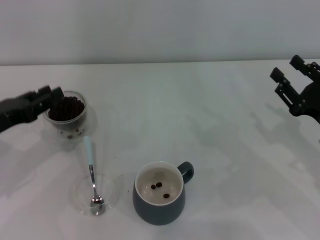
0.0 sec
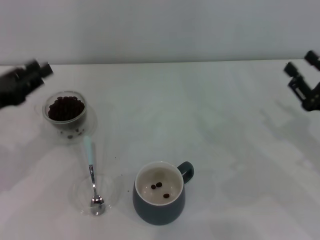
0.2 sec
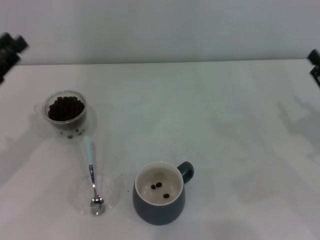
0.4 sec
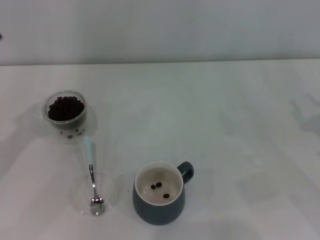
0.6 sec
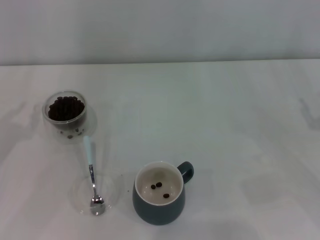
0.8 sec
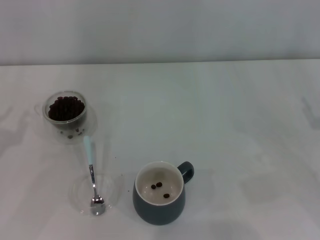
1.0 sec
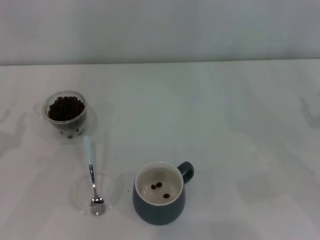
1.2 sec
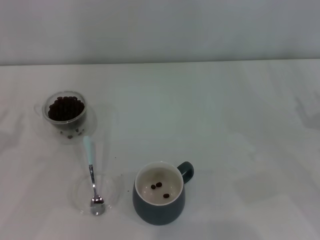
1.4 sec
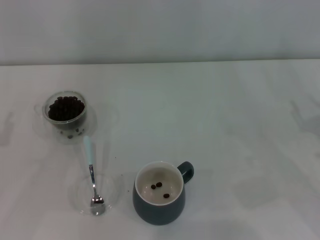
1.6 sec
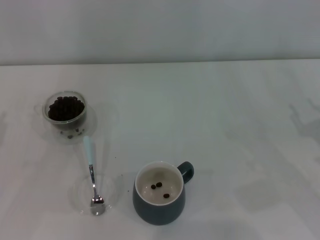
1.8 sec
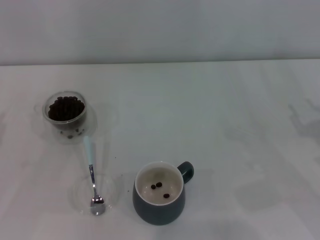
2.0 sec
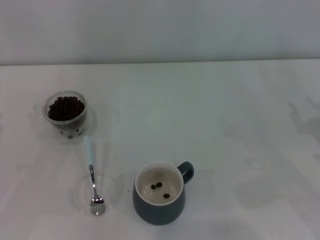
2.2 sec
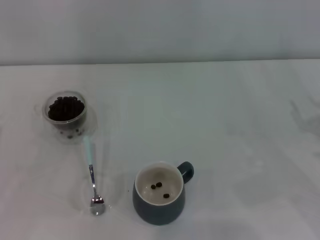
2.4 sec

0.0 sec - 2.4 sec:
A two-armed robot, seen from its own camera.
Task of the whole recording: Use a blue spoon to take out the coffee beans from the glass and pour them into the gray cup.
0.0 sec - 1.2 sec: The right gripper shifts some 5 cm to the right; the left gripper moves to the left, approximately 5 cm.

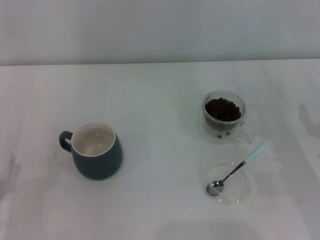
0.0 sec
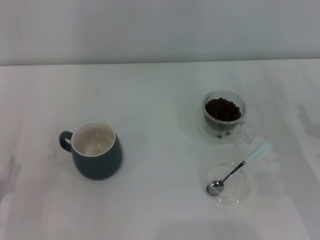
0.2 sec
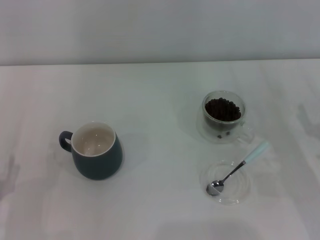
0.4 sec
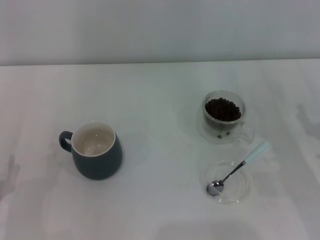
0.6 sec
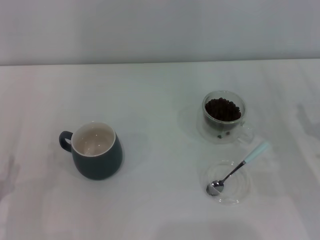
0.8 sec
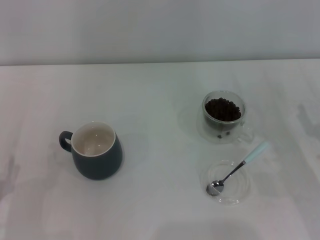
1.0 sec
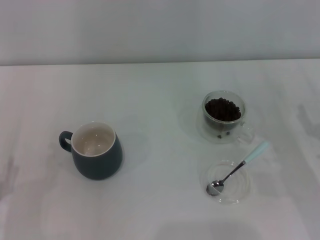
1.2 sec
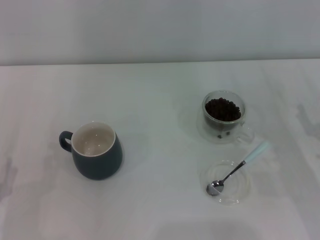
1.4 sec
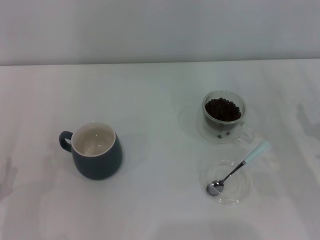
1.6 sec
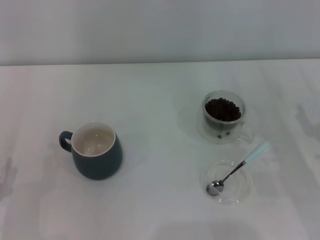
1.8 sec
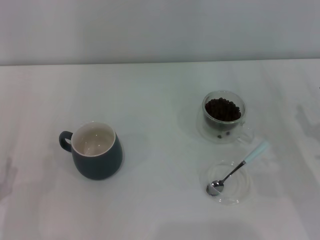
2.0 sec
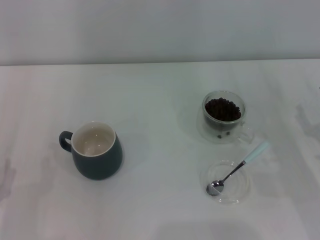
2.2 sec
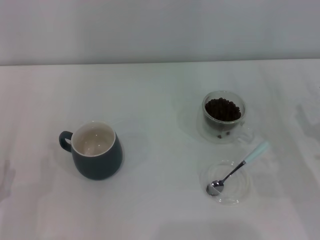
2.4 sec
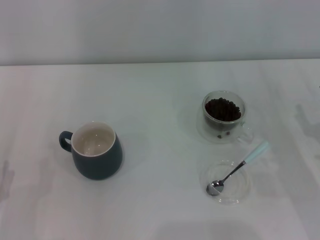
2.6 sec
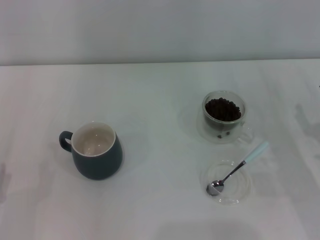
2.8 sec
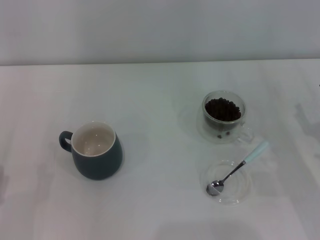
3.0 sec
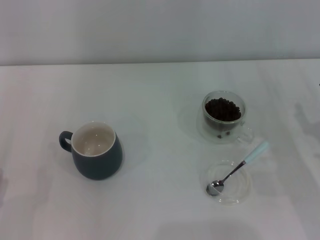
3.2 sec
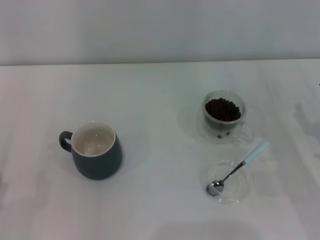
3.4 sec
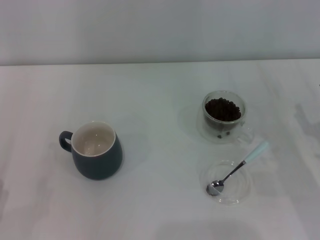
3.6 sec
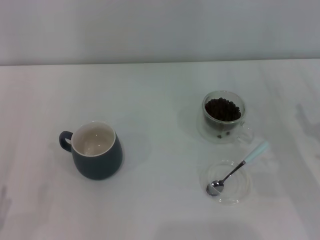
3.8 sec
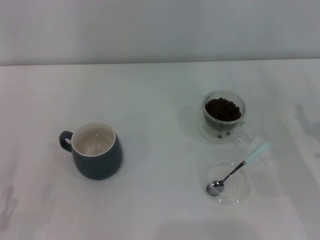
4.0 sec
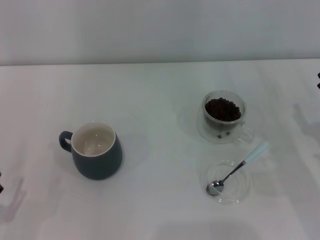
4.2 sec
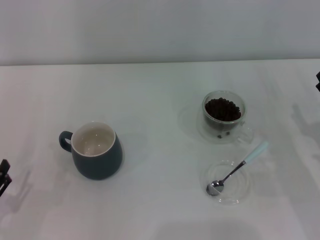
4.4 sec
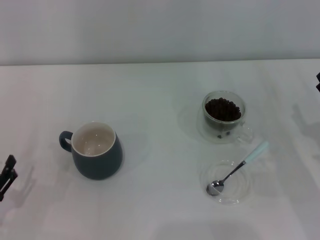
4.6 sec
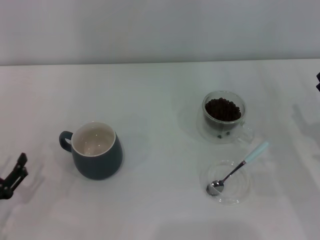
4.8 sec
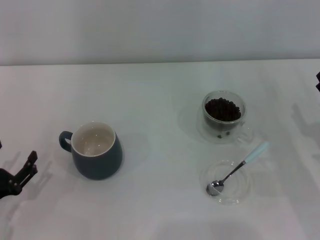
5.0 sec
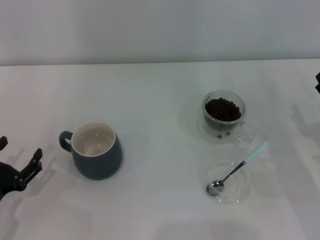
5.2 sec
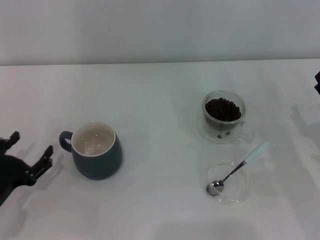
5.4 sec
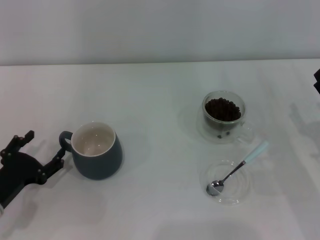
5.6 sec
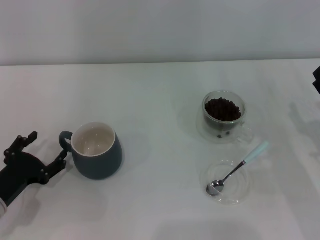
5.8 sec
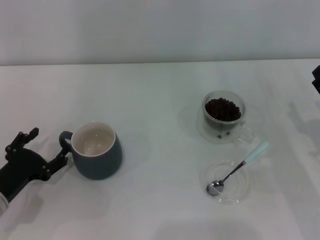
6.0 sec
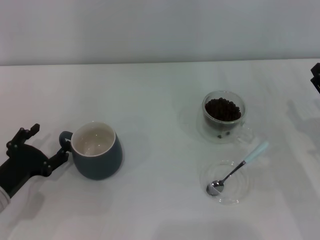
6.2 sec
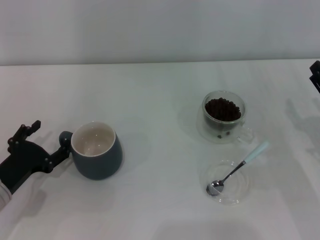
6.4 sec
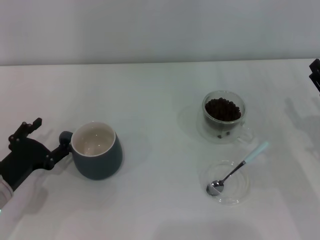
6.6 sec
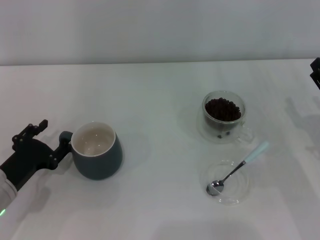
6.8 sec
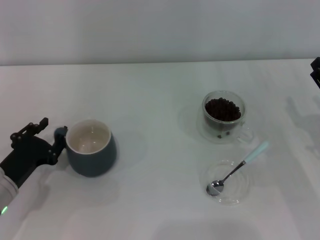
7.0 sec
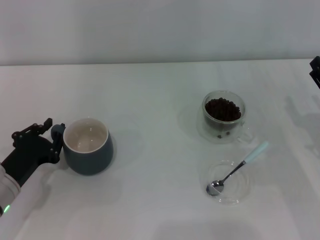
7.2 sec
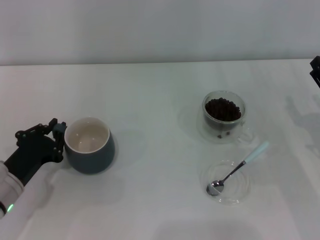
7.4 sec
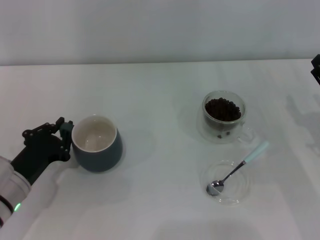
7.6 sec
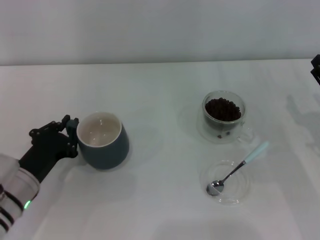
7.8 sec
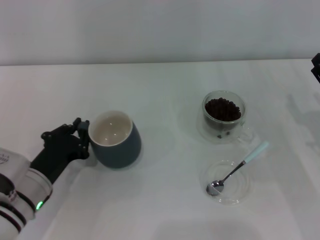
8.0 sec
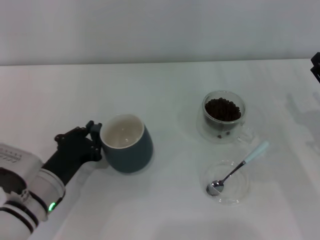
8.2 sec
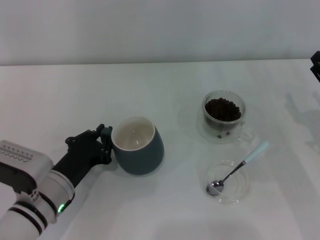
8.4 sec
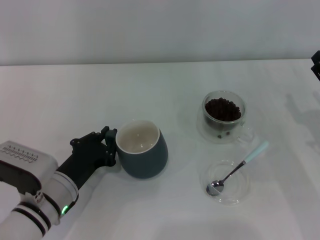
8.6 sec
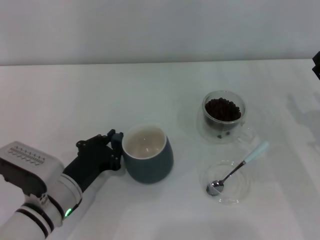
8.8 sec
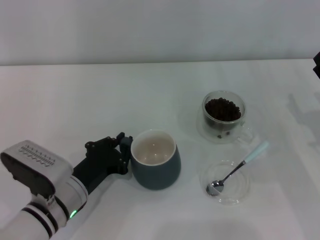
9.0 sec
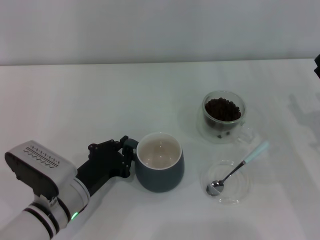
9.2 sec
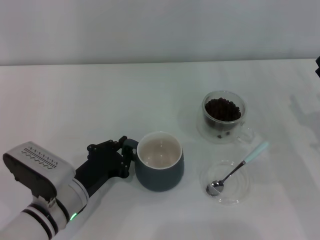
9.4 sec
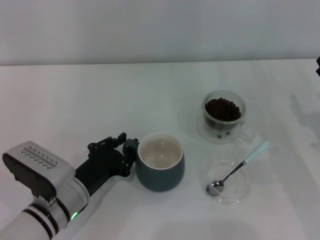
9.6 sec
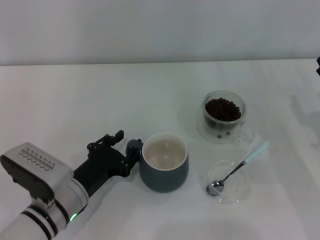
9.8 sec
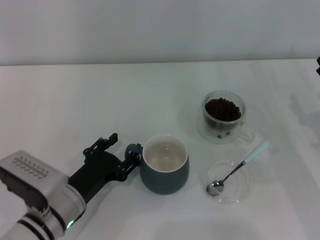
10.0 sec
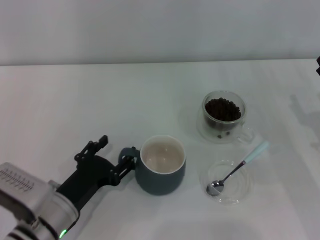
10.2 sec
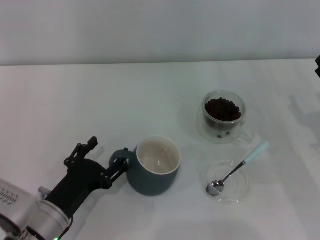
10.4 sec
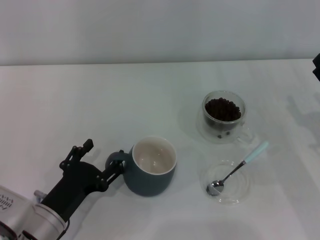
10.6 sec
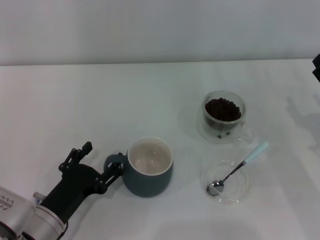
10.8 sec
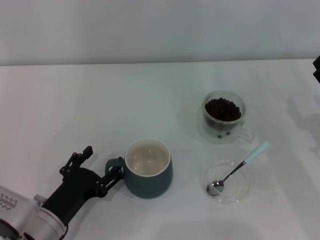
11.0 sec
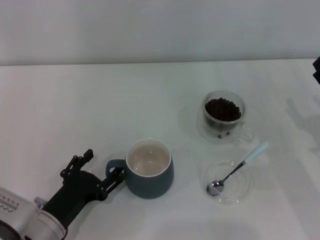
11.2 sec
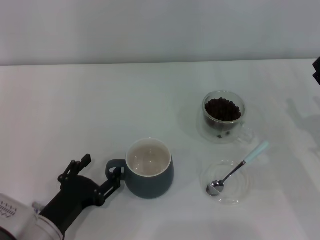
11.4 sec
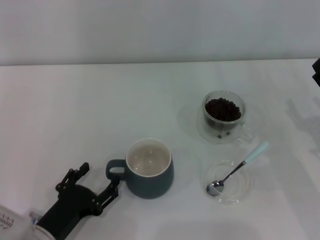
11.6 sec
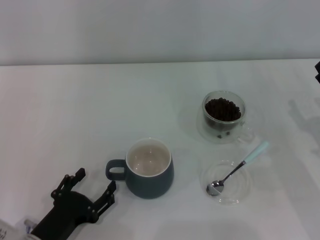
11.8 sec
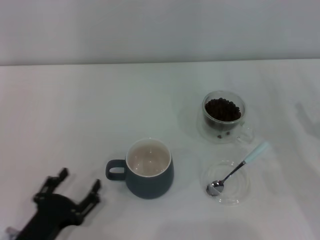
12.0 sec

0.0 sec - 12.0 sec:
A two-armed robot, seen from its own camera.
Task of the whole recording: Use a blue spoon to take out the coffee beans from the glass and pour them into the gray cup.
Step, 0.0 sec - 12.0 sec: Move the cup to the center of view with the left gripper.
0.0 sec - 1.6 sec: Neither gripper changes place.
4.4 sec - 6.0 sec: The left gripper moves forward, approximately 10 cm.
6.0 sec - 7.6 sec: The left gripper closes.
7.6 sec - 9.0 sec: The left gripper moves to the right, some 10 cm.
9.0 sec - 10.4 sec: The left gripper opens up.
10.4 sec - 12.0 sec: The left gripper is displaced backward by approximately 5 cm.

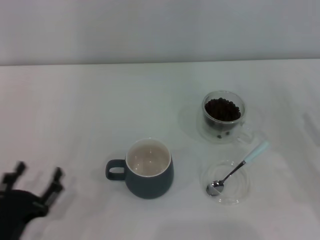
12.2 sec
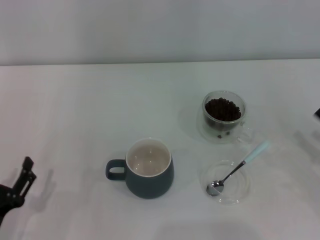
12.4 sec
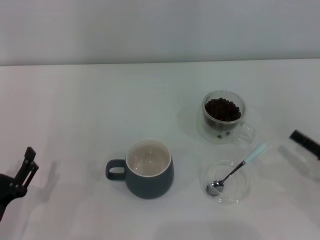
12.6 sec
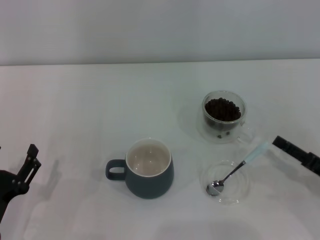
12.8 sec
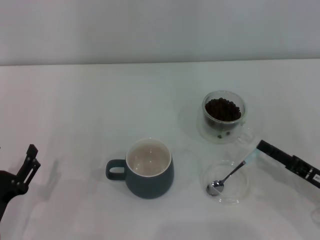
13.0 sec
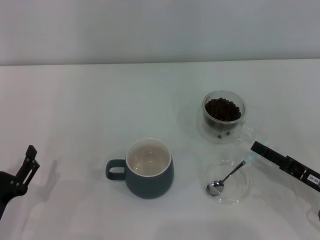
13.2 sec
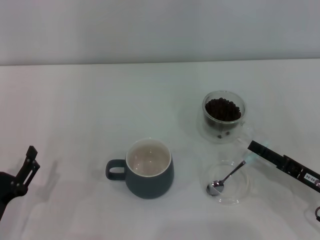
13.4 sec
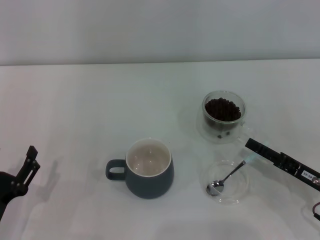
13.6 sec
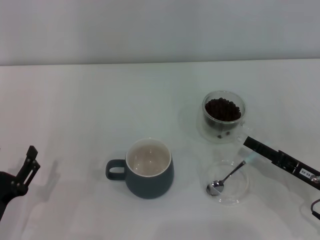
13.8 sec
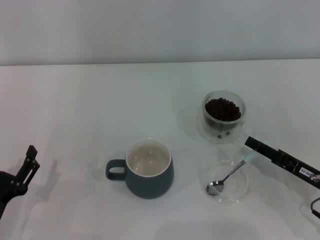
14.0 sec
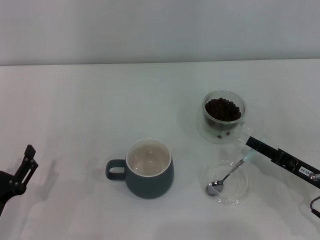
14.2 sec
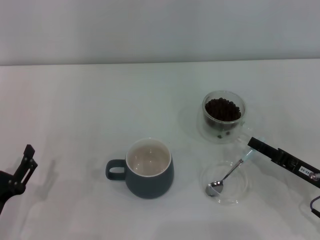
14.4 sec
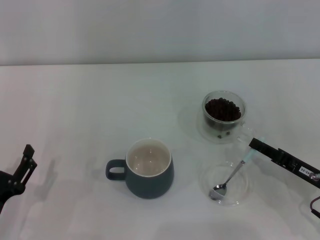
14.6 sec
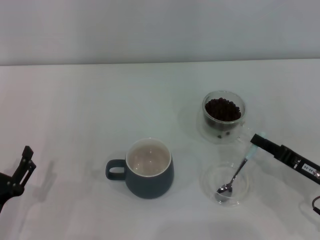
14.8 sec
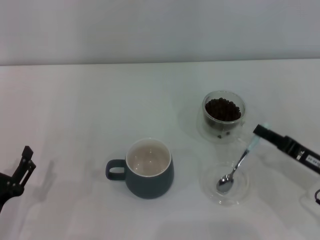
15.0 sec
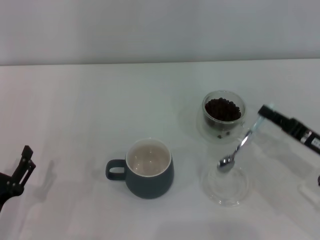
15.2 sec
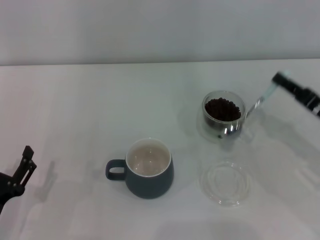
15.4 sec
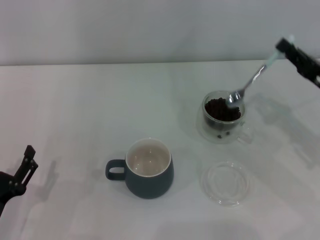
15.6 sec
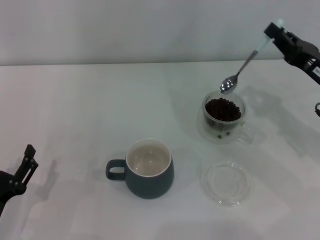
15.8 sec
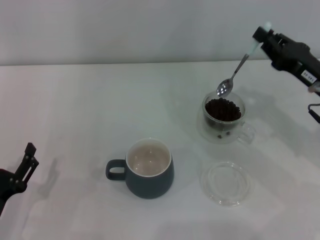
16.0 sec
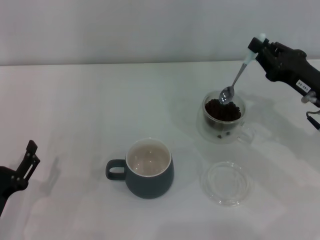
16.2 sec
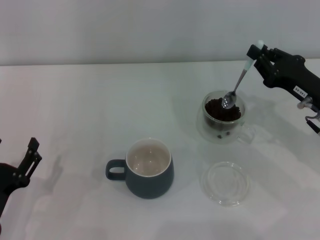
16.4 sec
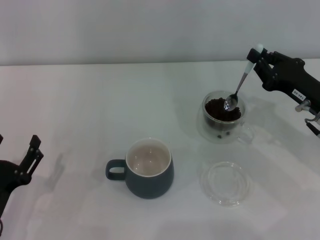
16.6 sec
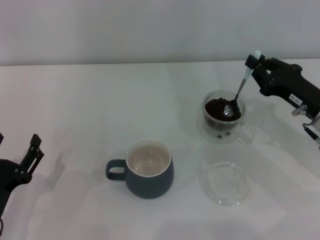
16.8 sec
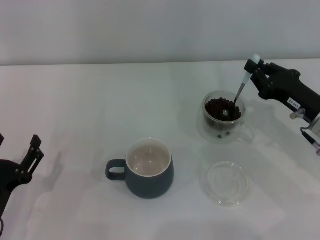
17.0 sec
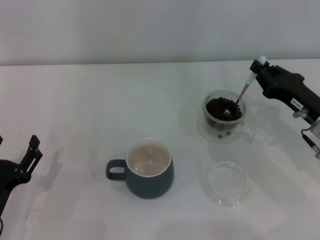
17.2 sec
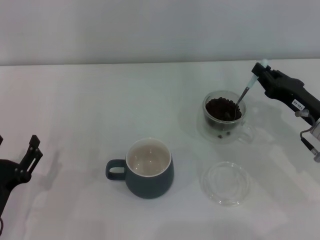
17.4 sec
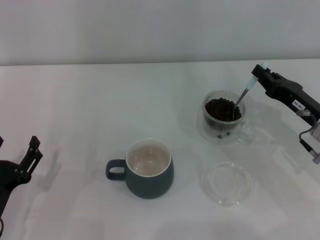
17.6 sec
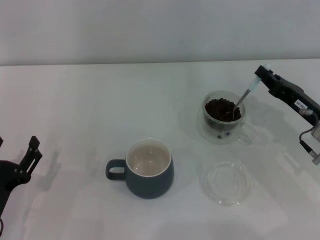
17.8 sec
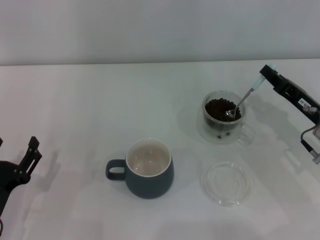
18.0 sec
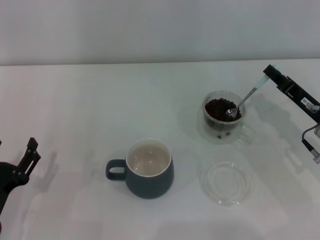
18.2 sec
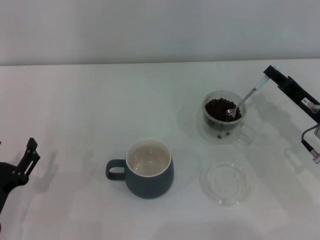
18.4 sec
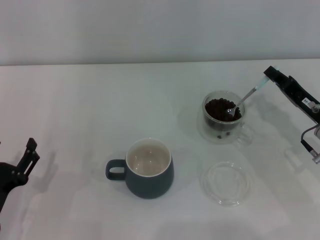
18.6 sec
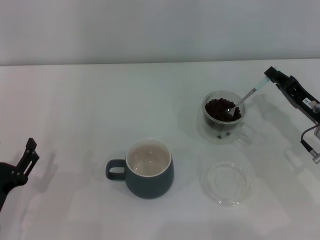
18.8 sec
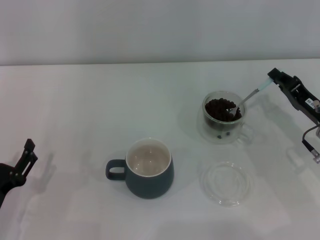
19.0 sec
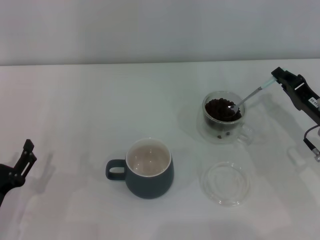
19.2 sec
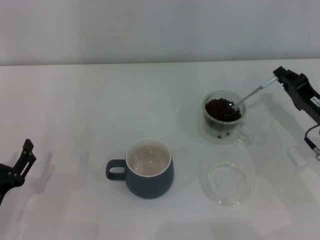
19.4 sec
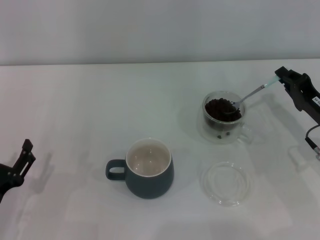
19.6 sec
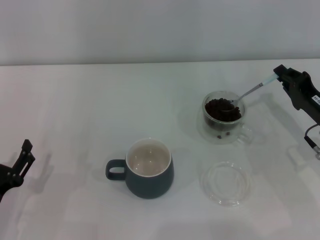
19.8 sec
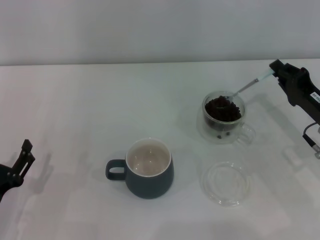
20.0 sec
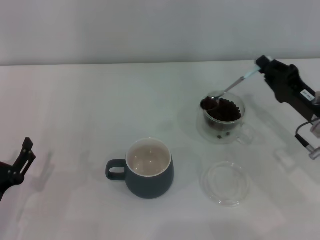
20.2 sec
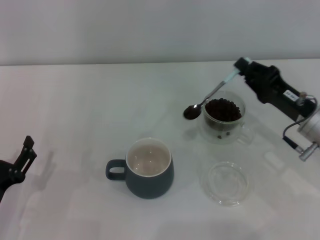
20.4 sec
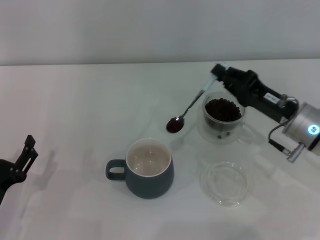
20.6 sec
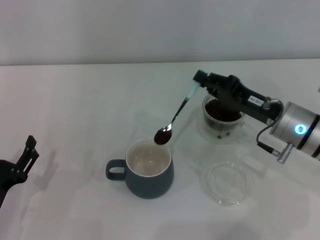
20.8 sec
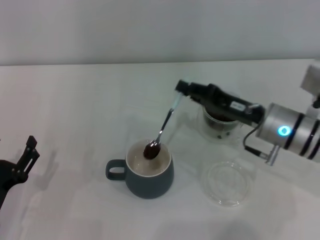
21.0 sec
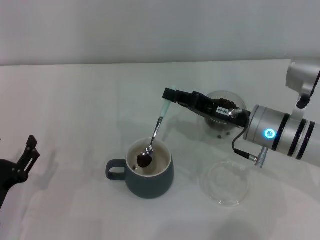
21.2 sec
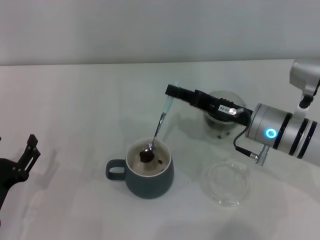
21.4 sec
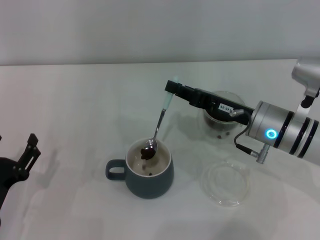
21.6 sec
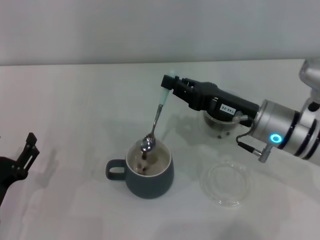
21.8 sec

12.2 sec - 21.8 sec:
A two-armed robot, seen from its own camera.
Task of the whole recording: Use a blue spoon to take out the coffee beans from the glass and pour them into the gray cup.
Step, 12.2 sec - 15.0 sec: Pick up the spoon with the right gripper.
12.2 sec - 13.8 sec: The right gripper heads to the left, covering roughly 5 cm.
13.8 sec - 15.4 sec: The right gripper shifts about 5 cm upward, and closes up.
15.4 sec - 17.0 sec: The right gripper changes place by about 5 cm.
20.2 sec - 21.8 sec: The right gripper shifts approximately 10 cm to the left.
